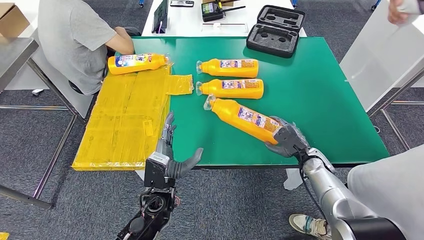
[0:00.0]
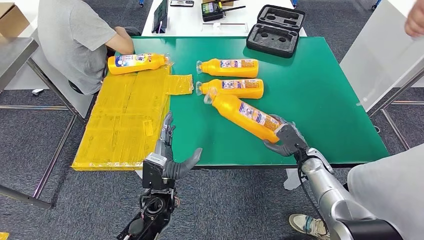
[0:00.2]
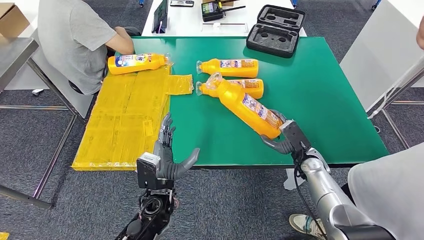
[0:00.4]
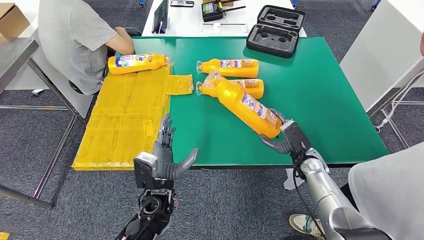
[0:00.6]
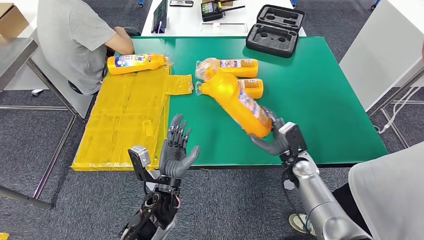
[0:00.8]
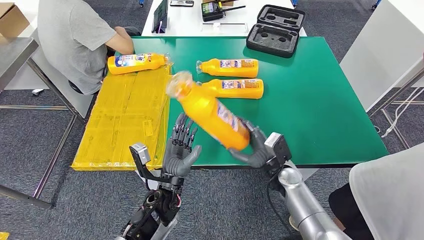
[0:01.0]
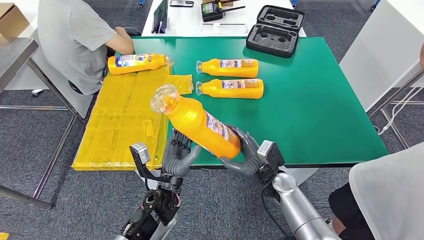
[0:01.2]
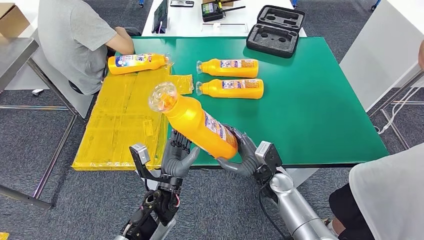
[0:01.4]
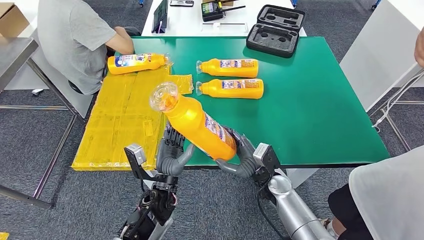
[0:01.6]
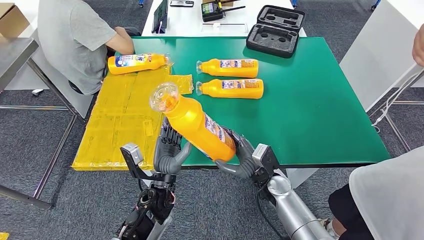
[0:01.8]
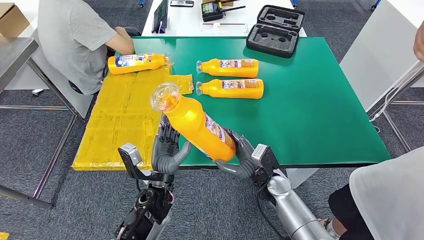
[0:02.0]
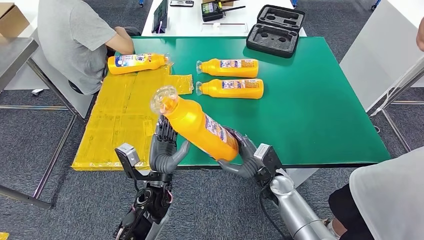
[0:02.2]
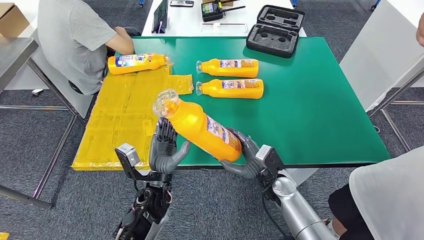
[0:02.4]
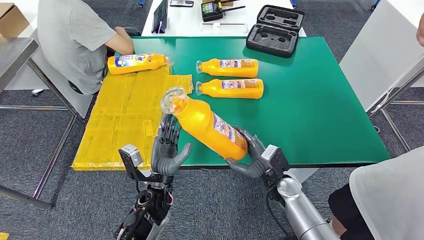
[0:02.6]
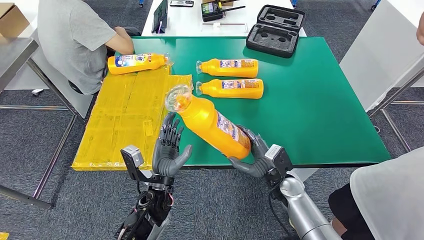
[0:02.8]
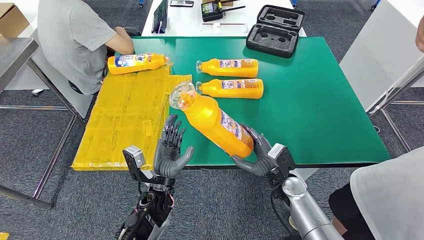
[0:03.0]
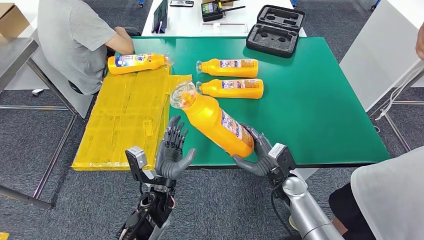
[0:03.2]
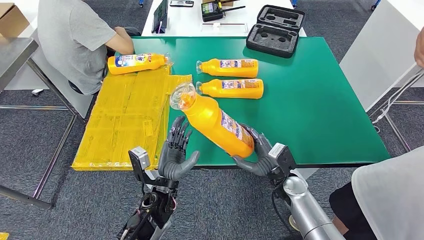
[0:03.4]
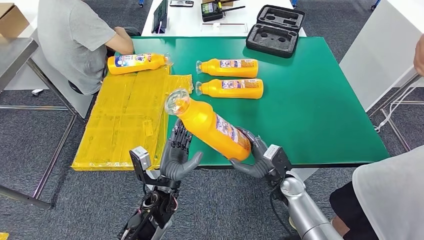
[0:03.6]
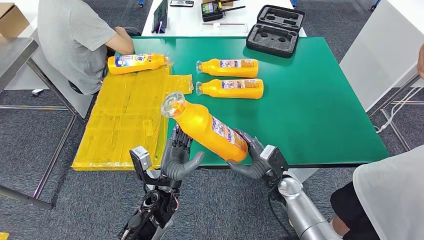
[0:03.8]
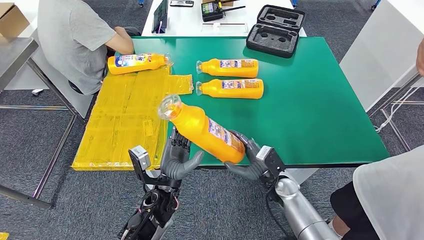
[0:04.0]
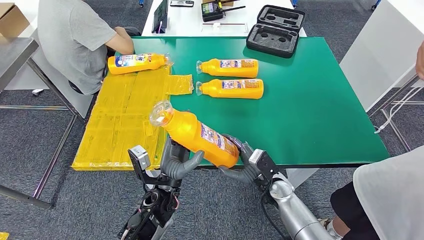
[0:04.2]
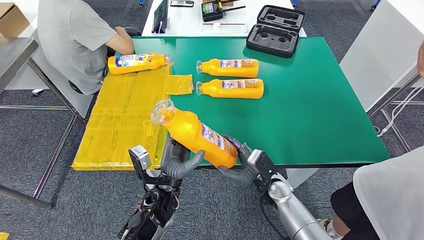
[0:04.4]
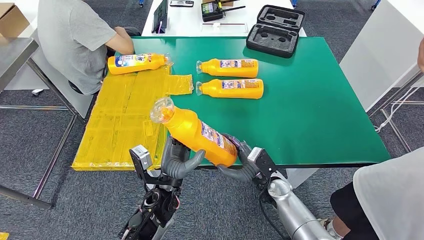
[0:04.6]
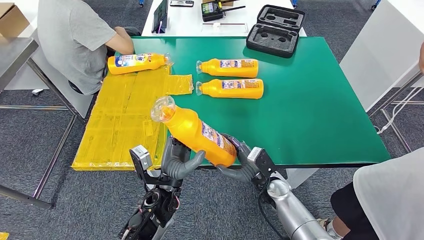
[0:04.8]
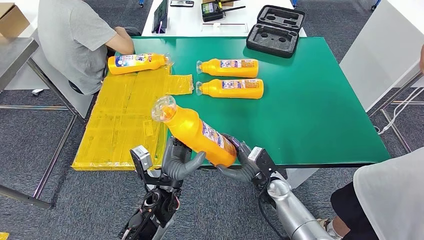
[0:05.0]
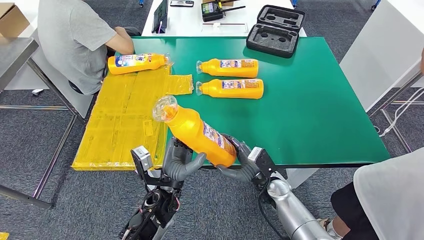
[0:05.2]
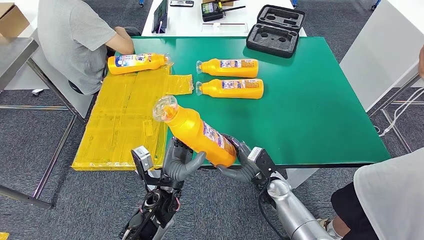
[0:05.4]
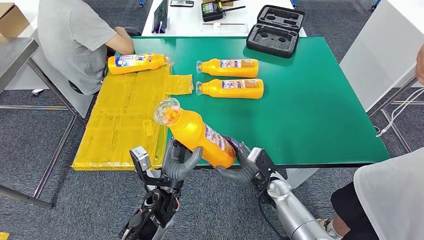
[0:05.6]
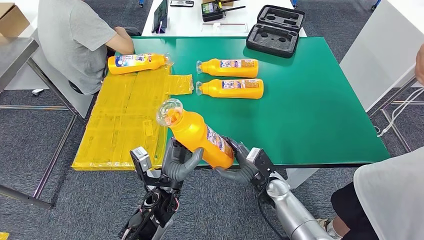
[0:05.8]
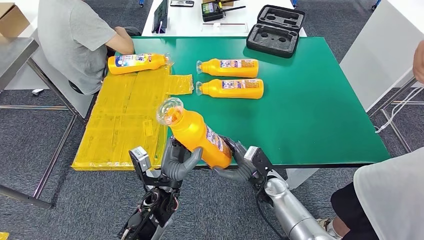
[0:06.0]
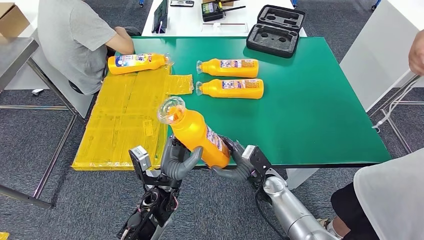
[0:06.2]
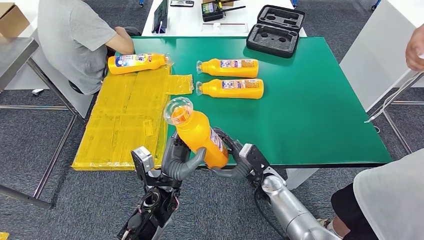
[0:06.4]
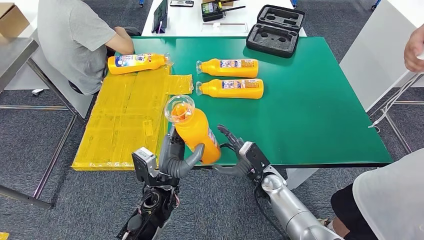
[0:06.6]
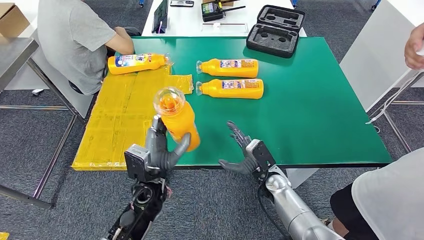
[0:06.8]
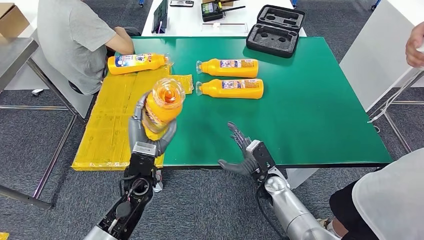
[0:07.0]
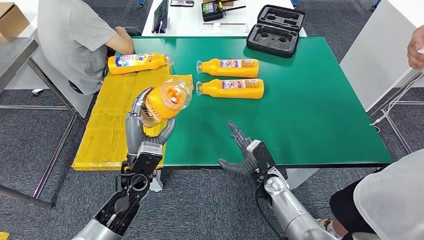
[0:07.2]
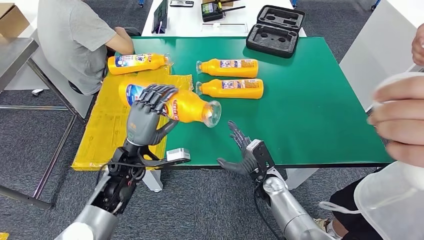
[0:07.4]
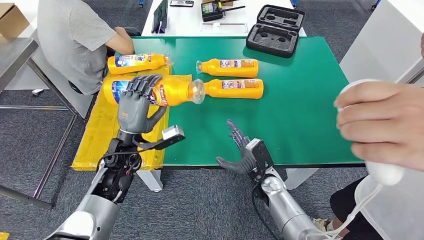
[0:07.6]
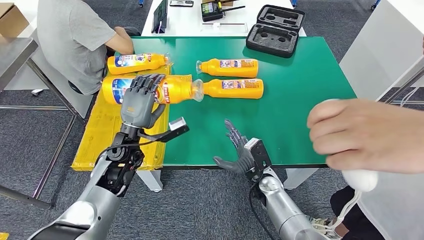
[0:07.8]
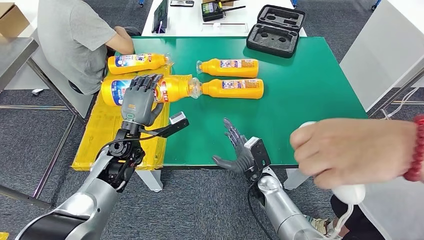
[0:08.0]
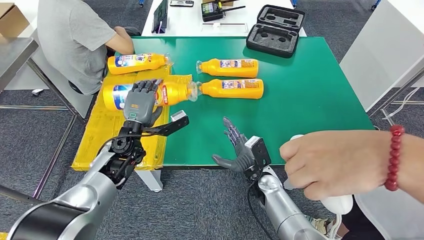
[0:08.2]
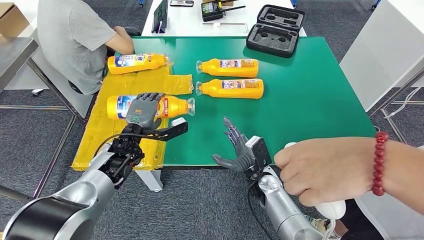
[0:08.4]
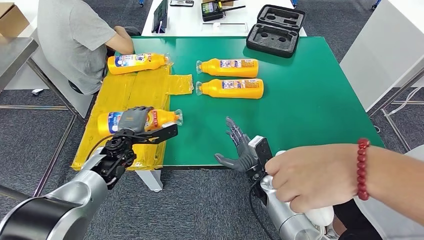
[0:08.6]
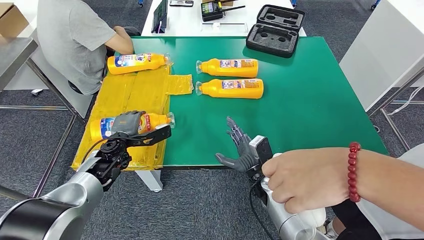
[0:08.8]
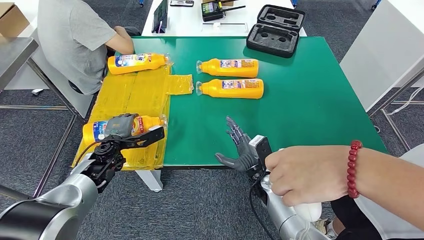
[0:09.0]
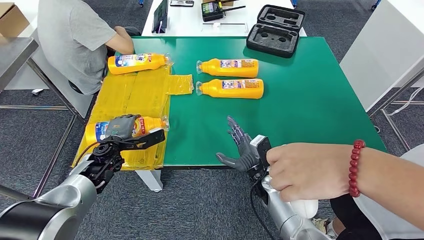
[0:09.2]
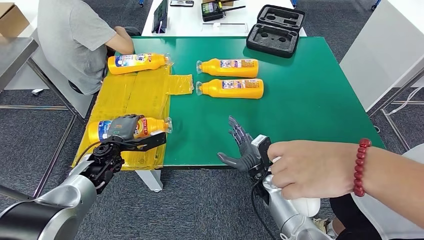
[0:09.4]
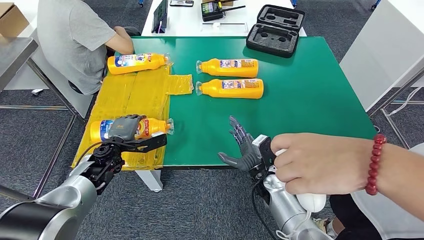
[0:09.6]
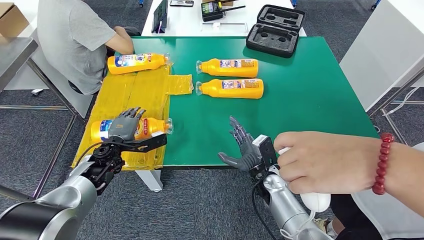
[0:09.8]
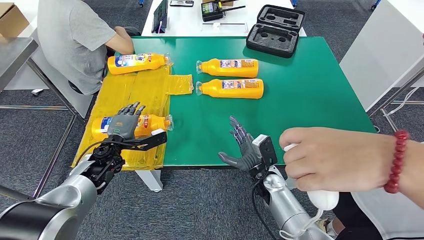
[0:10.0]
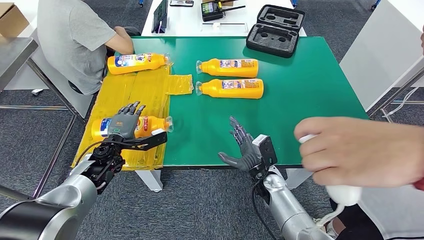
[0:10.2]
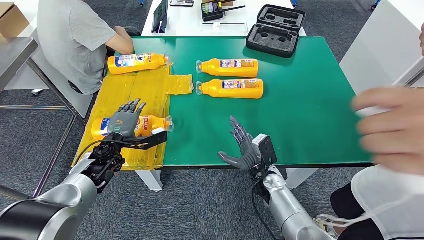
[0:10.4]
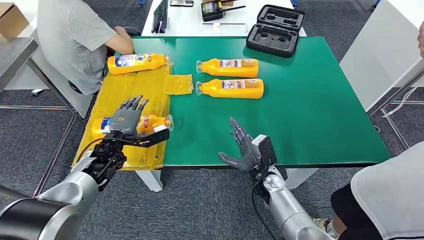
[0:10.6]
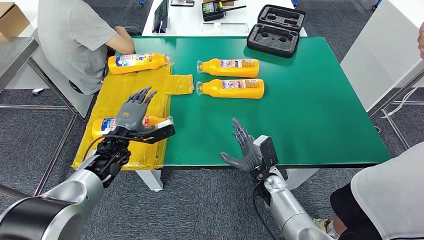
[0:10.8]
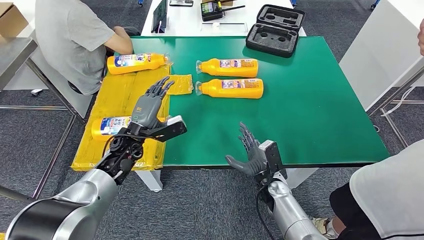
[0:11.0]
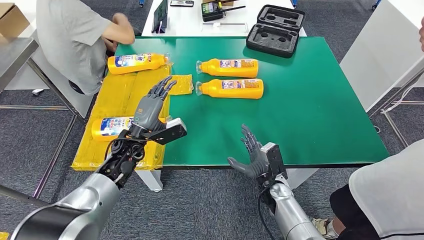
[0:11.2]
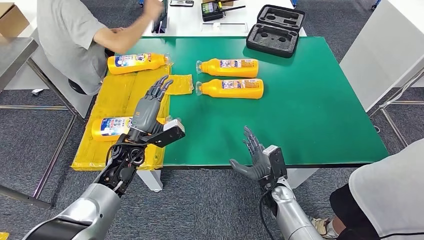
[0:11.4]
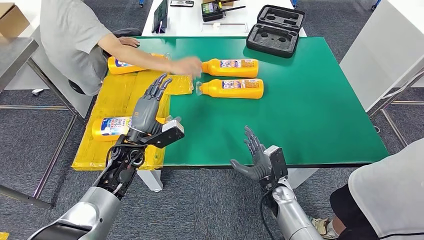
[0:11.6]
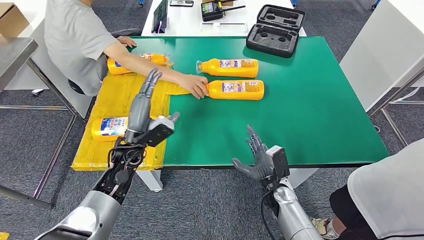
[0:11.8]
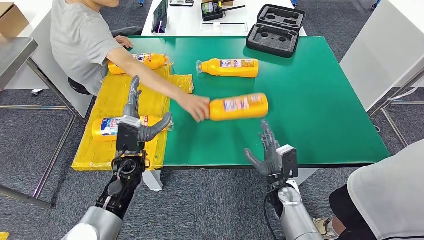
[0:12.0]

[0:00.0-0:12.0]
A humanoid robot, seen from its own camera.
Step, 0:01.0 to 0:08.4: Flip the fast-moving consumer goods bottle to the front side.
0:00.0 to 0:01.6: The right hand heads to the left, covering some 15 cm.
0:01.6 to 0:04.4: The hands make only small movements.
0:04.4 to 0:06.0: Both hands stay put.
0:09.0 to 0:10.4: The hands make only small movements.

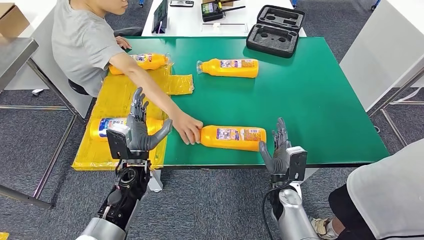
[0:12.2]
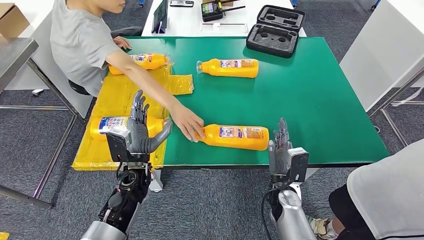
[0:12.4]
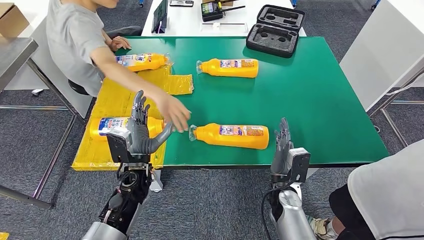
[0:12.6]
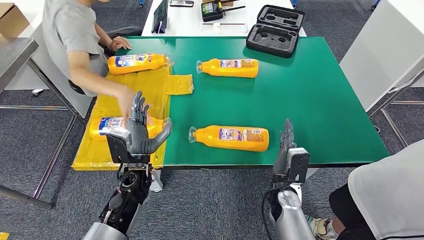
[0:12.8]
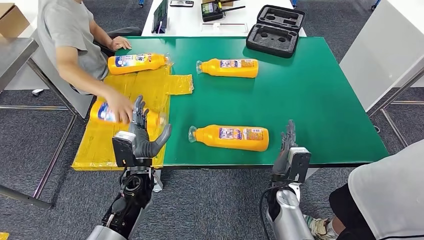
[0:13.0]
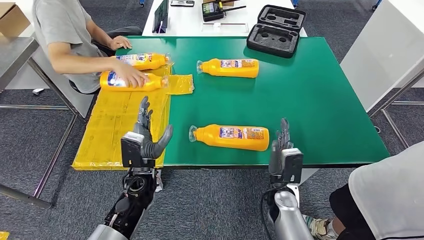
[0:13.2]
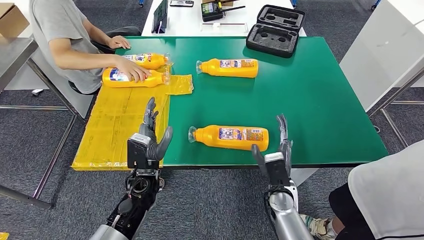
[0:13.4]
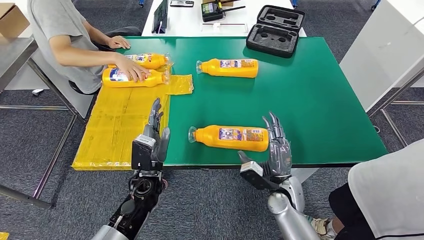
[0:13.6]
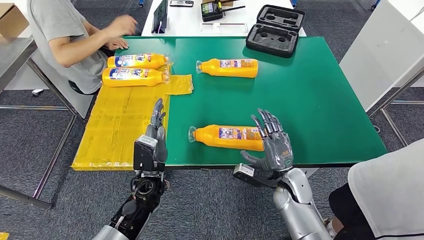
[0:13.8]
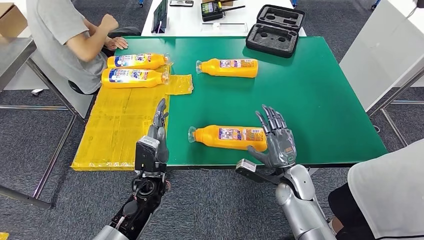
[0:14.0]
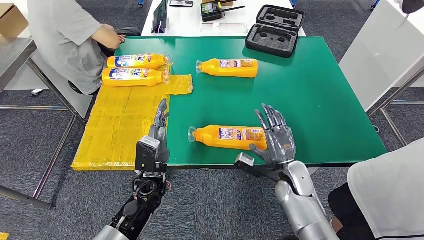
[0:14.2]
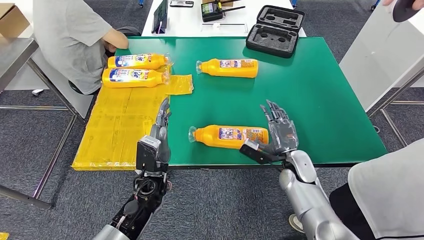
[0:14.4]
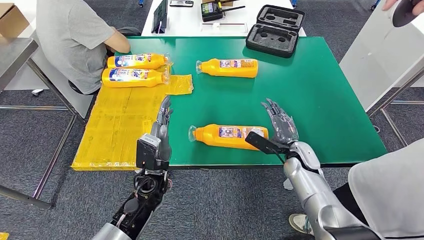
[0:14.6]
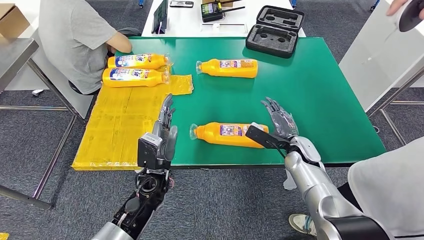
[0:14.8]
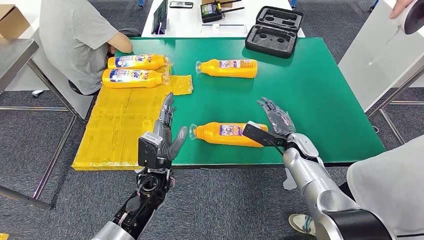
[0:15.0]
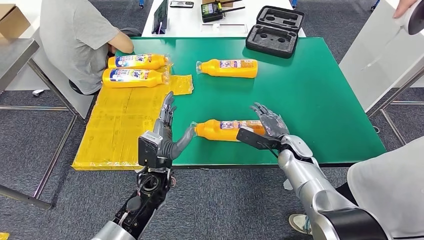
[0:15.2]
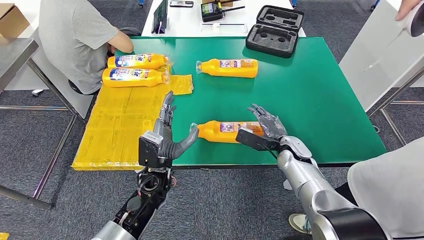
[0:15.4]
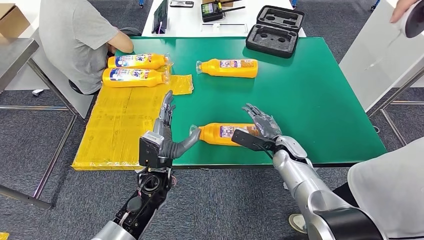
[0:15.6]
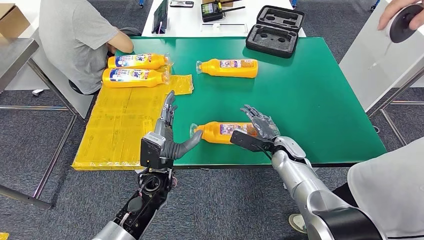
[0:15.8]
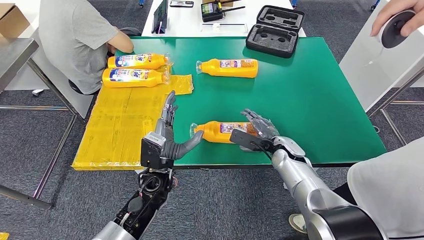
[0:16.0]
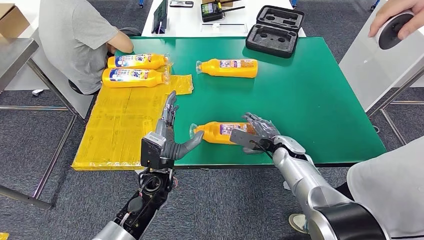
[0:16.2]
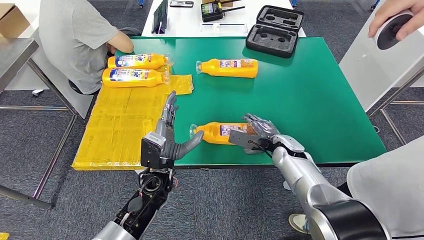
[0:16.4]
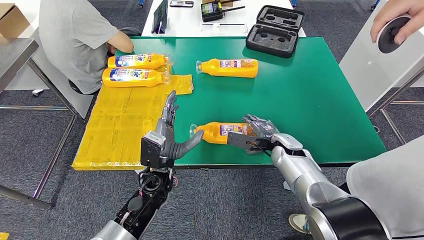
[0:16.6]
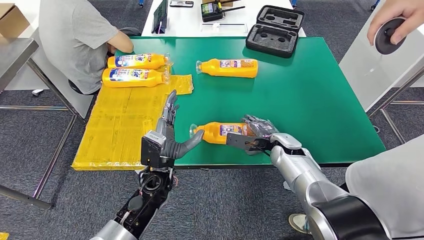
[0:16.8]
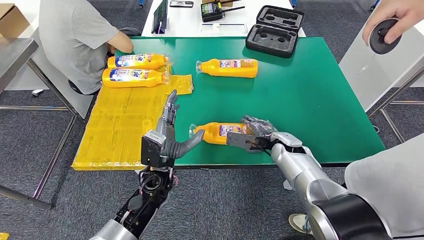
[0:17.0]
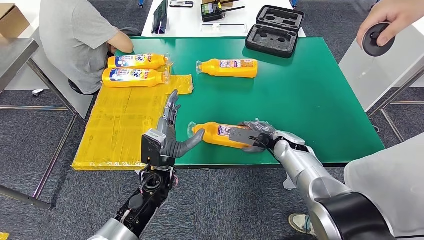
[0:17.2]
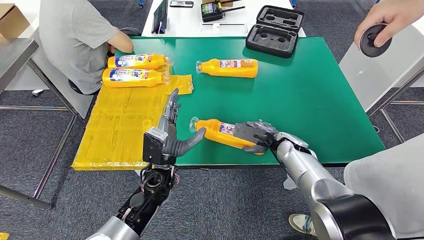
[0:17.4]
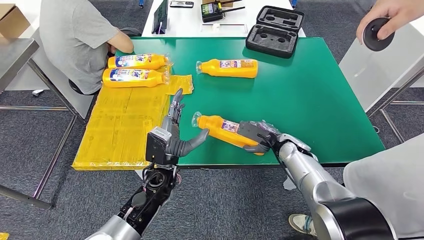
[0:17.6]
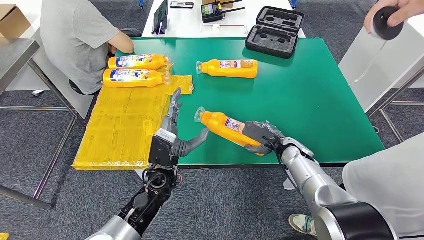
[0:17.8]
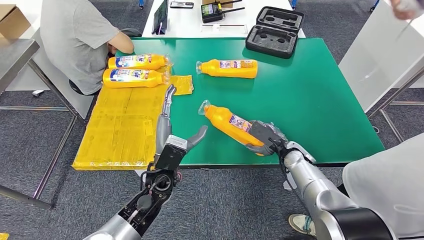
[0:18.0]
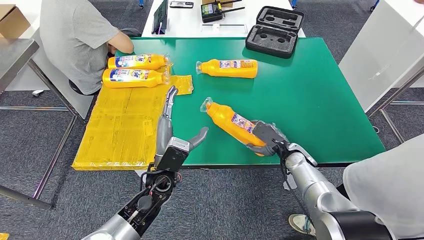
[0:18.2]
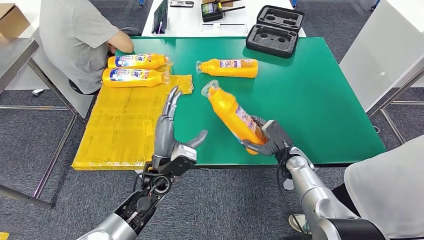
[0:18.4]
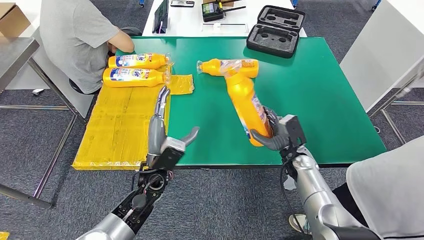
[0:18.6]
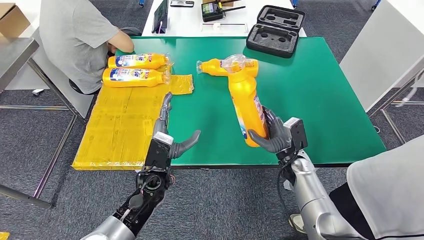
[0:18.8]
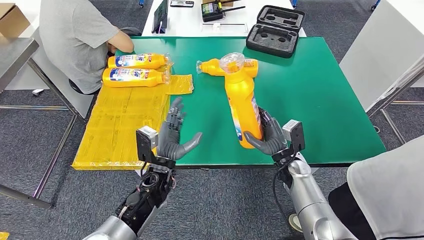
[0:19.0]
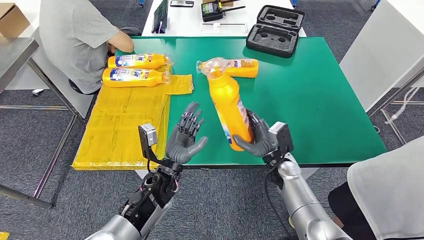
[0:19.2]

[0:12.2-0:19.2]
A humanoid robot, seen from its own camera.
0:15.0 to 0:16.4: The hands make only small movements.
0:16.4 to 0:17.8: There are only small adjustments of the hands.
0:17.8 to 0:19.2: The right hand heads to the left, covering approximately 5 cm.
